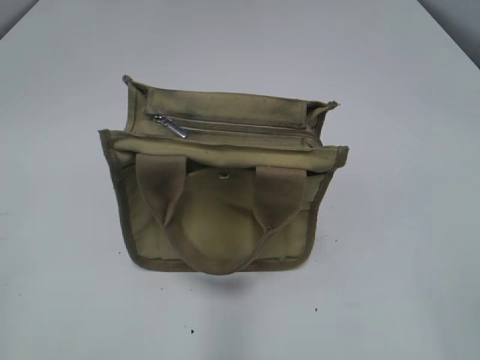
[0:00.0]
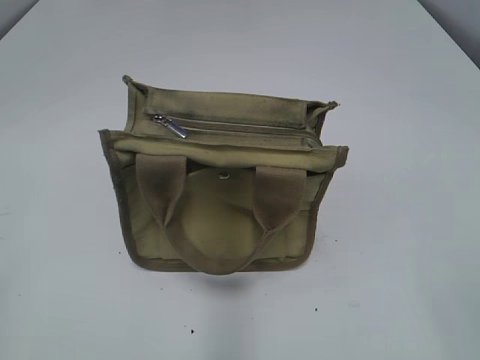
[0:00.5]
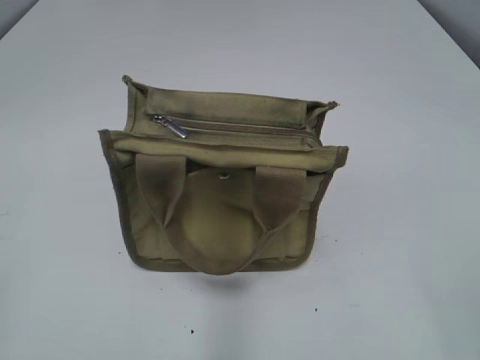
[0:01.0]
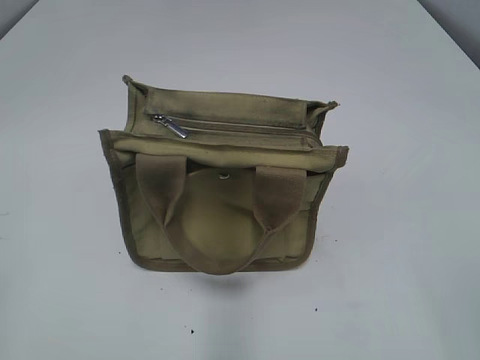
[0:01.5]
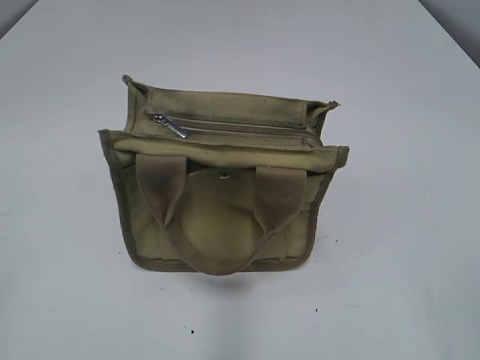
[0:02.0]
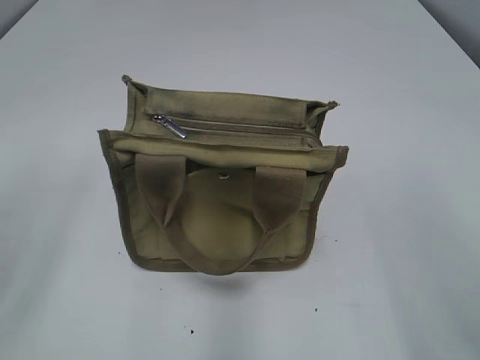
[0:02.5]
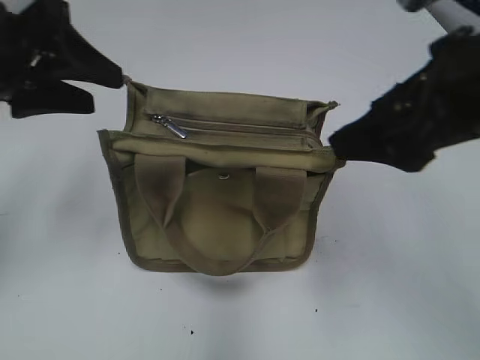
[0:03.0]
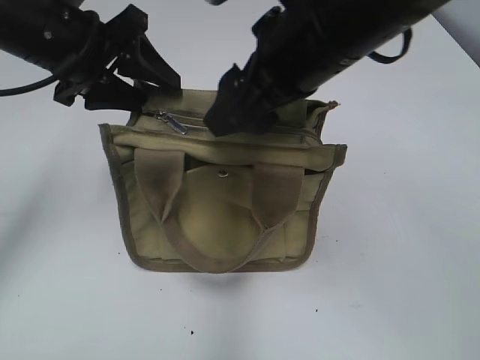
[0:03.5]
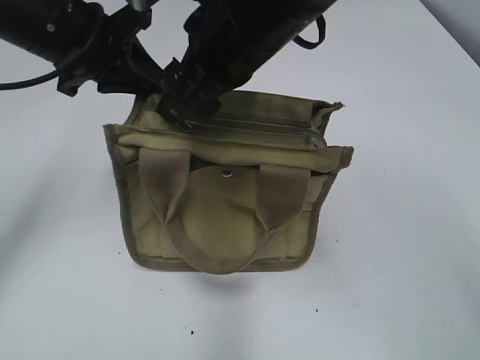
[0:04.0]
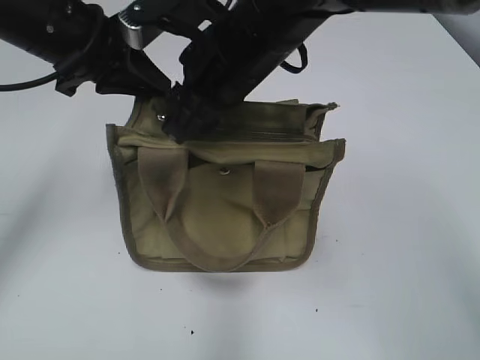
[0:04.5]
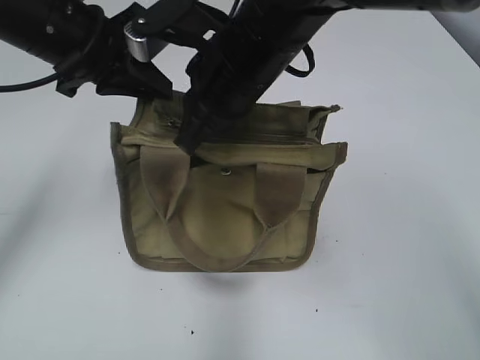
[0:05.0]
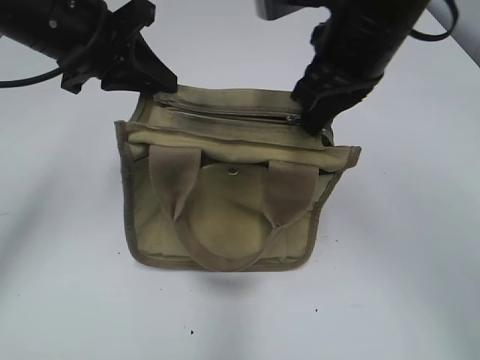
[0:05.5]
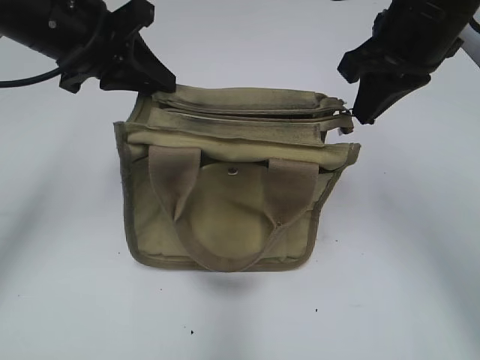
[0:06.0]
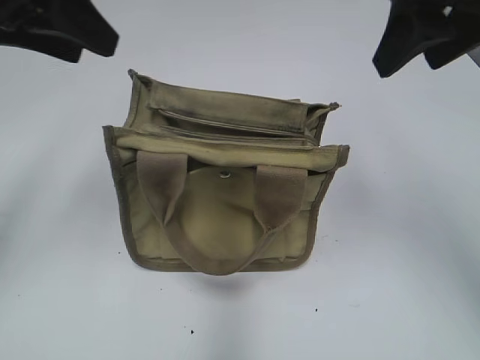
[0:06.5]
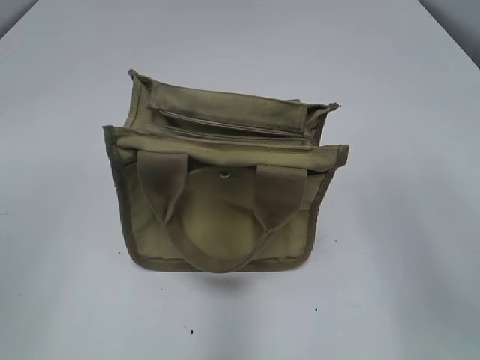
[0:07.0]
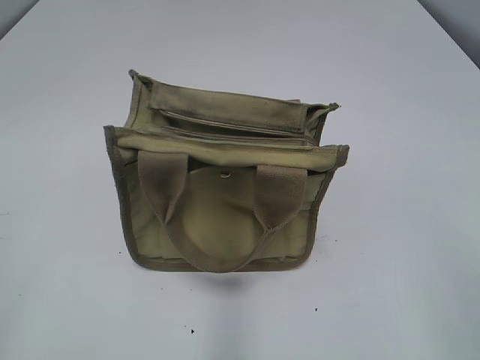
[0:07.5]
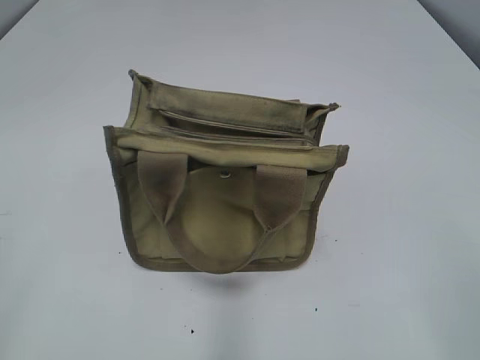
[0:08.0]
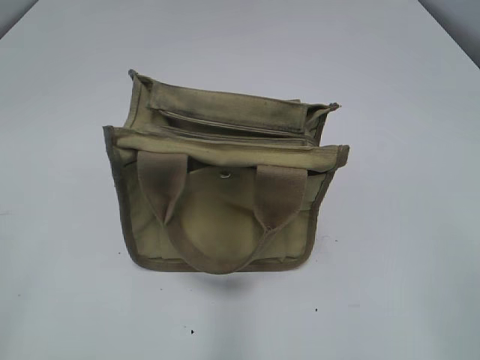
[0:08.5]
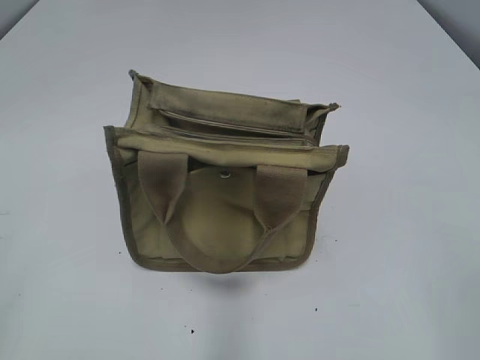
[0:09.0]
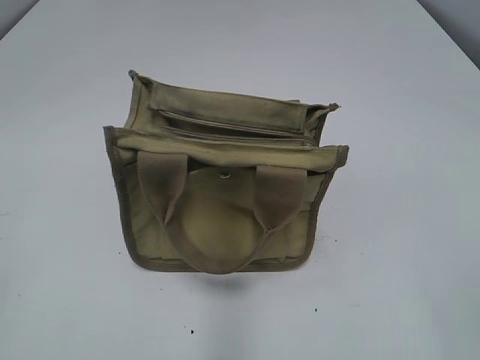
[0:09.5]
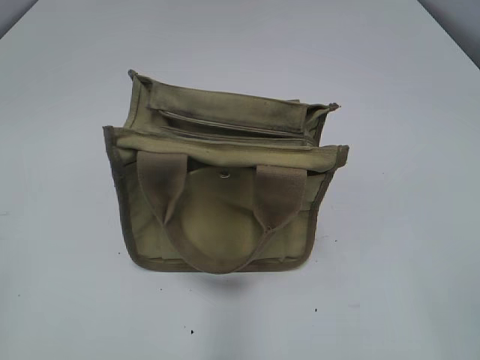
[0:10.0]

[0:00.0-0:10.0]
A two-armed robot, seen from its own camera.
Step, 0:00.0 to 0:06.0: Pull open the zipper with your right hand.
0:02.0 to 0:04.0: The left gripper is displaced forward and to the right by approximately 35 cm, and closes up, while the right gripper moves forward and to the left, some 40 cm.
0:04.0 to 0:06.0: The right gripper shifts about 15 cm to the right, and closes.
0:06.0 to 0:08.0: The right gripper is displaced backward by approximately 30 cm, and opens its fingers, while the left gripper goes approximately 35 cm backward and to the left, and opens.
